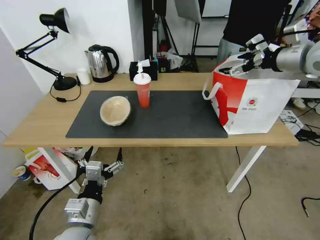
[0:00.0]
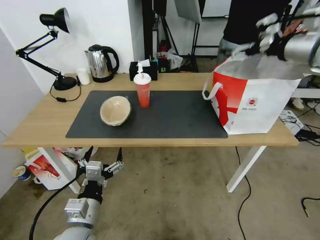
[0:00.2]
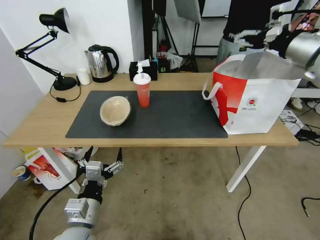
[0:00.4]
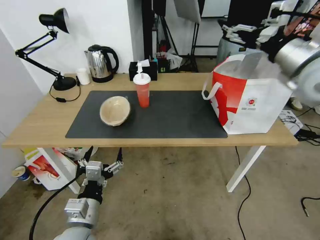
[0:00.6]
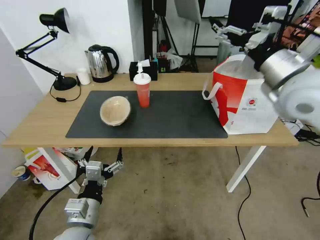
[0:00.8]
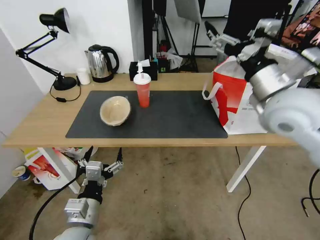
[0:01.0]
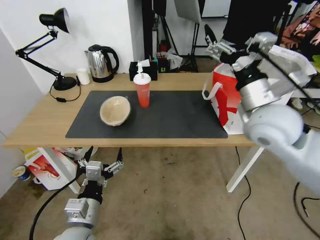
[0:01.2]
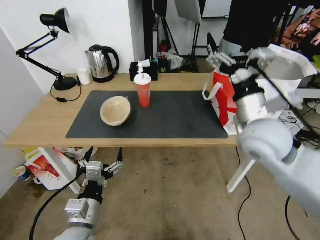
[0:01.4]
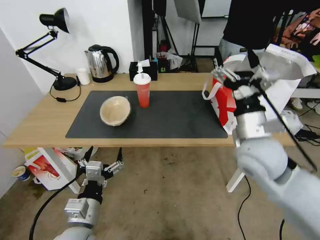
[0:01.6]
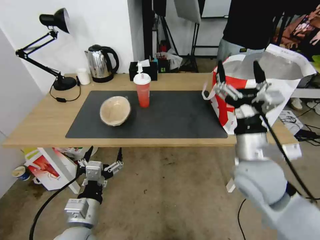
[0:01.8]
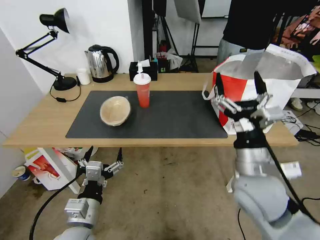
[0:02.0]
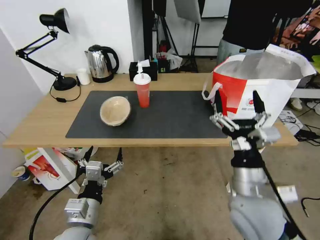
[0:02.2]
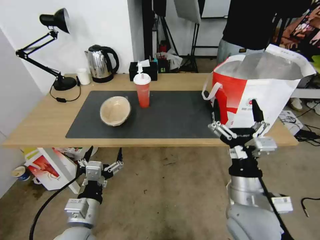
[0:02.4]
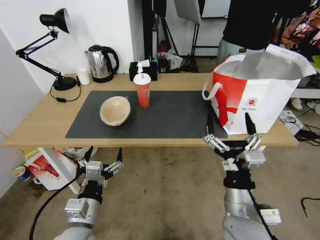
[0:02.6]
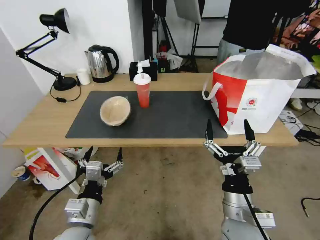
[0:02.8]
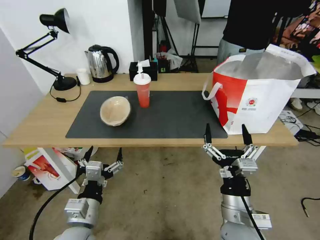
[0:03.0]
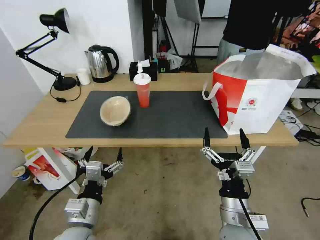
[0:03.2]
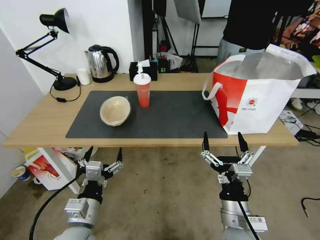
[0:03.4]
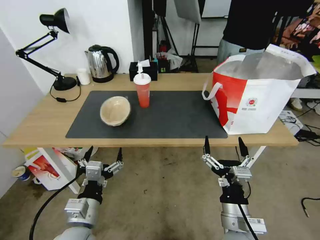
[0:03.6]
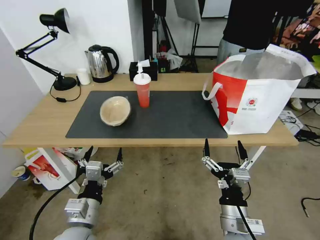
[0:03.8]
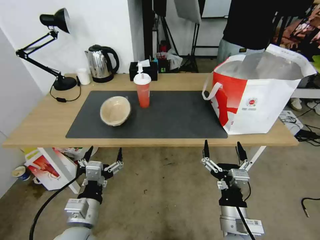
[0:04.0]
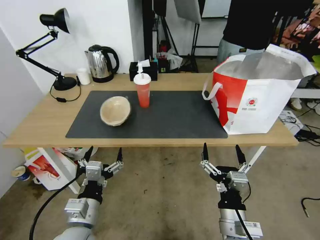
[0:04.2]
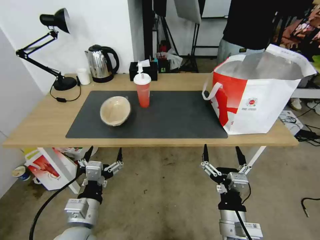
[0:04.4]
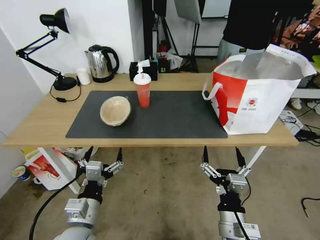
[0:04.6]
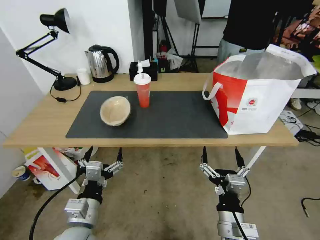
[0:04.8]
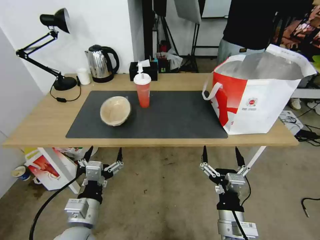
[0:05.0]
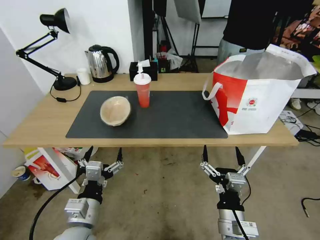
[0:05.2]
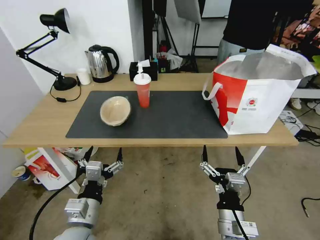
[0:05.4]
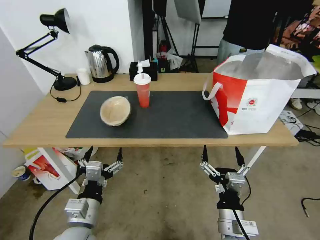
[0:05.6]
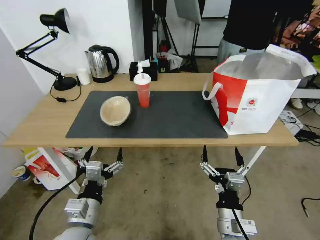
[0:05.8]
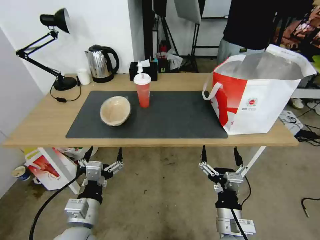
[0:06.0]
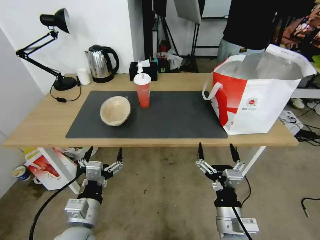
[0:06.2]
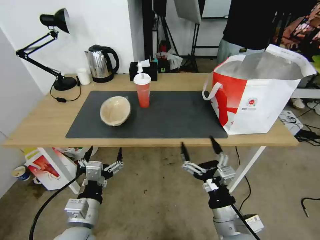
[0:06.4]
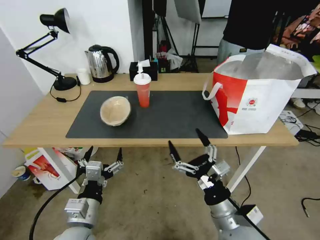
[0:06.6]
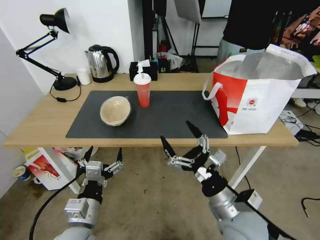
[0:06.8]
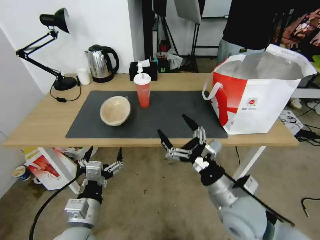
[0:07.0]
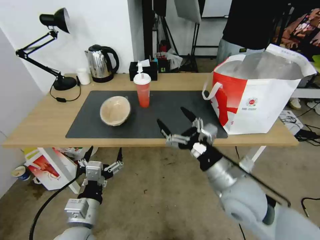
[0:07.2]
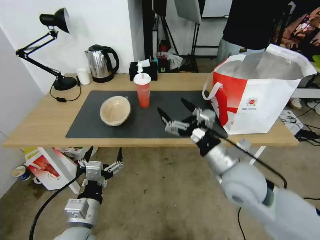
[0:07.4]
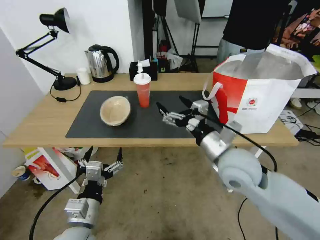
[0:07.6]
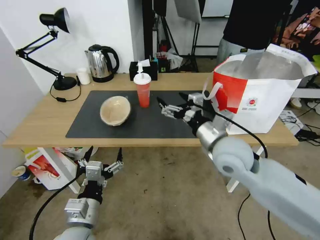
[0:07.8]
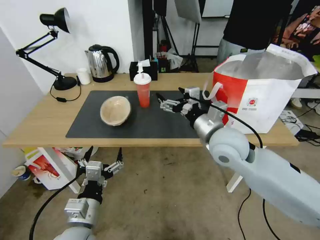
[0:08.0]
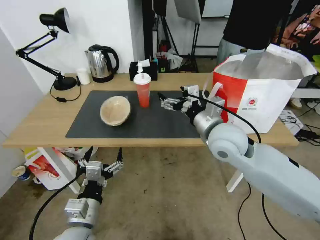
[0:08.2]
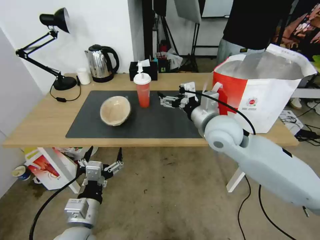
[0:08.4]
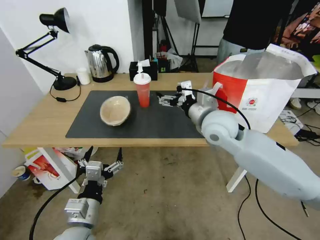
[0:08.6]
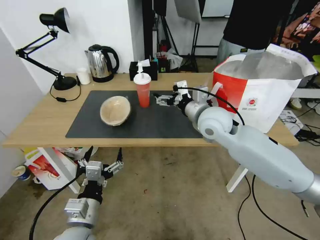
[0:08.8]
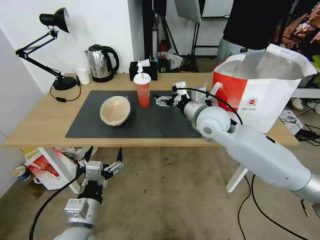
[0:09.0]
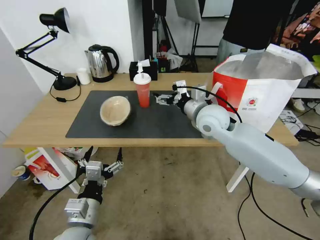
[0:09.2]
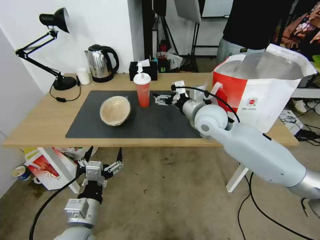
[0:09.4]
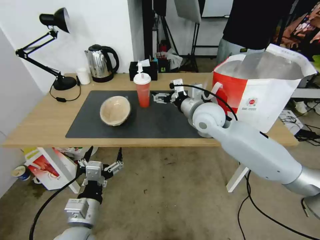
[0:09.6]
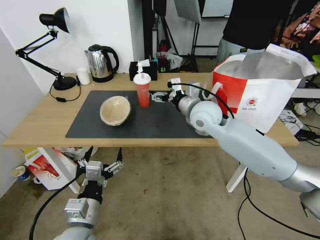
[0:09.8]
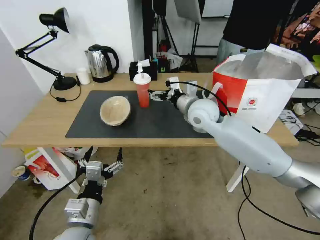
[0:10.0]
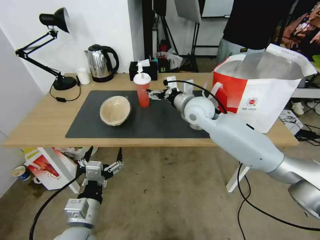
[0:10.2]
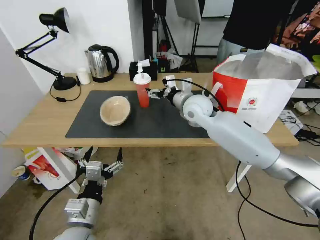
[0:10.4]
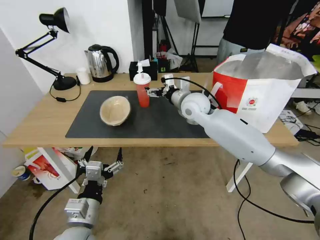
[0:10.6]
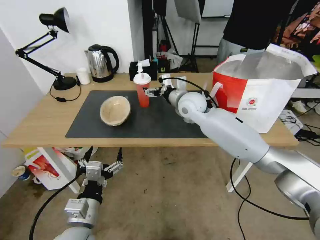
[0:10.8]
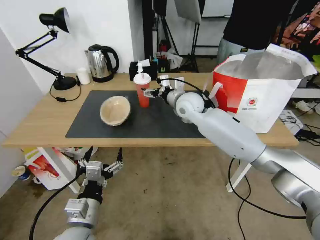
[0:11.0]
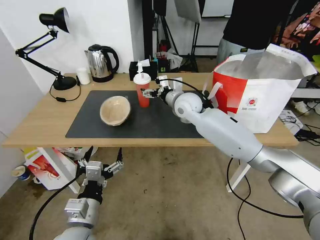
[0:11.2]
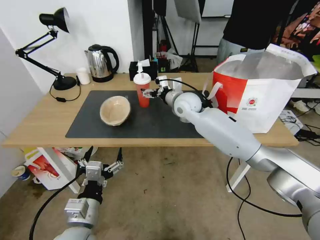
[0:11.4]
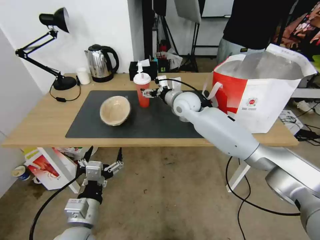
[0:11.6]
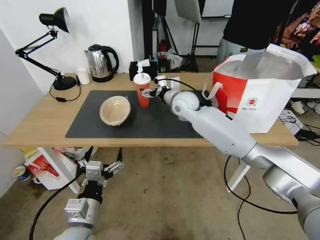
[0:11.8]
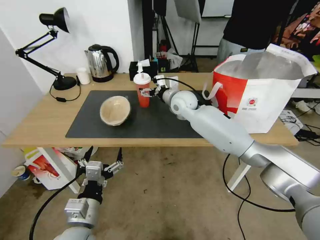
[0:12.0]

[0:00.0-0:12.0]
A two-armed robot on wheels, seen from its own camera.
Task of the whole recording: Pick up the trash from the table and place it into the takeout bag.
0:00.0 to 0:01.6: The right gripper heads downward, to the left and backward, covering about 30 cm.
0:01.6 to 0:03.0: The right gripper travels downward and backward by approximately 20 cm.
0:03.0 to 0:06.0: There are only small adjustments of the grippers.
0:06.0 to 0:07.6: The right gripper moves forward and upward, roughly 20 cm.
0:07.6 to 0:09.0: The right gripper heads forward, covering about 15 cm.
0:09.0 to 0:10.4: The right gripper travels forward by about 5 cm.
0:10.4 to 0:12.0: The right gripper travels forward by roughly 5 cm.

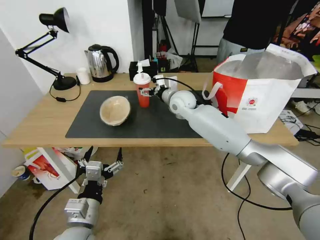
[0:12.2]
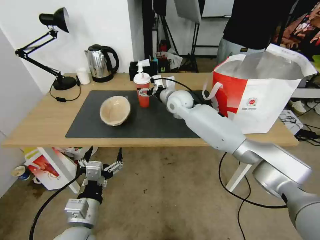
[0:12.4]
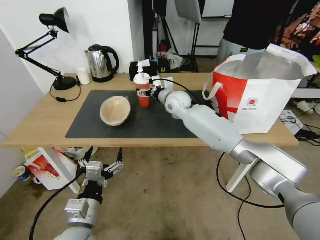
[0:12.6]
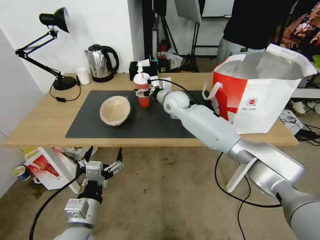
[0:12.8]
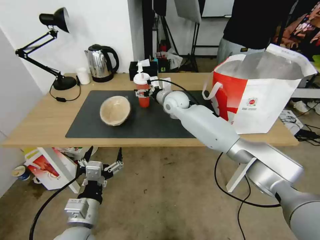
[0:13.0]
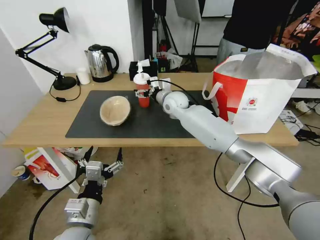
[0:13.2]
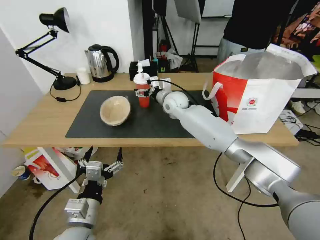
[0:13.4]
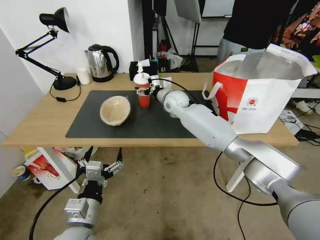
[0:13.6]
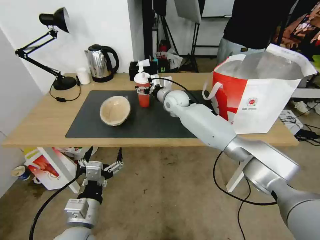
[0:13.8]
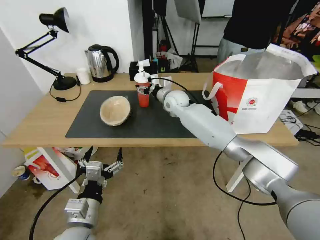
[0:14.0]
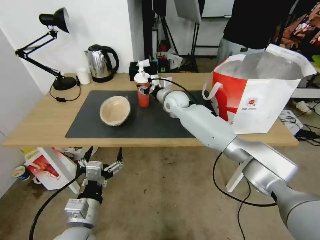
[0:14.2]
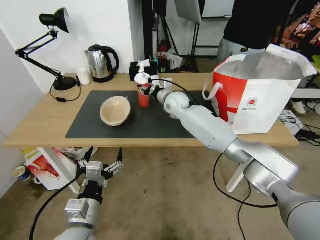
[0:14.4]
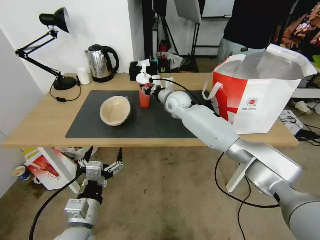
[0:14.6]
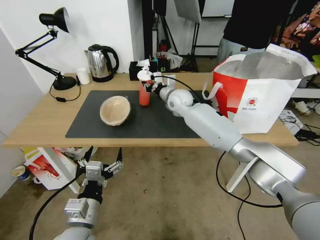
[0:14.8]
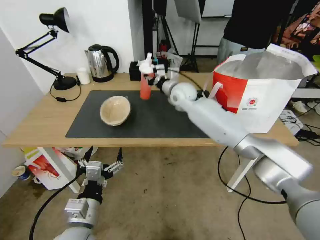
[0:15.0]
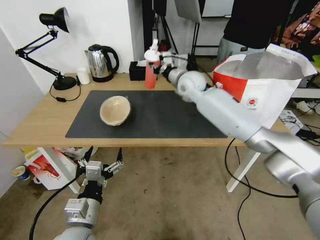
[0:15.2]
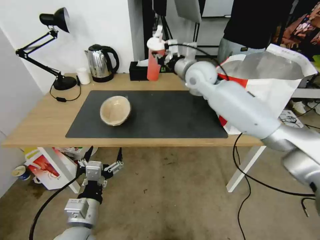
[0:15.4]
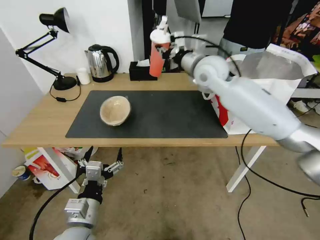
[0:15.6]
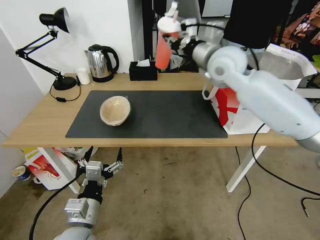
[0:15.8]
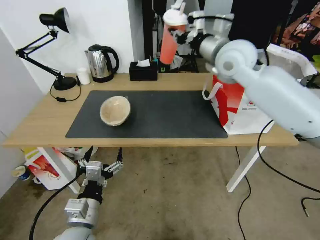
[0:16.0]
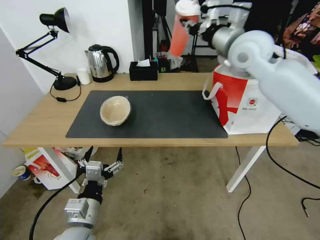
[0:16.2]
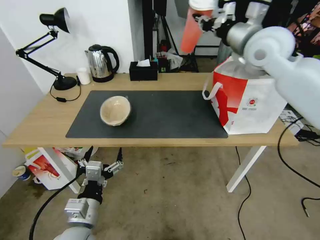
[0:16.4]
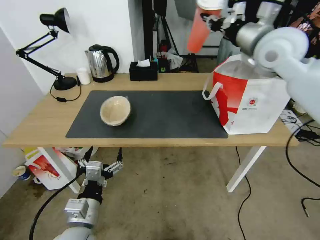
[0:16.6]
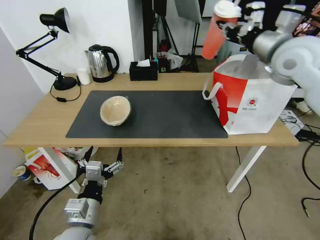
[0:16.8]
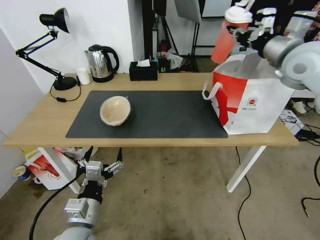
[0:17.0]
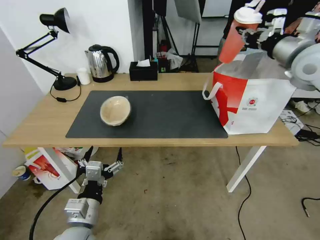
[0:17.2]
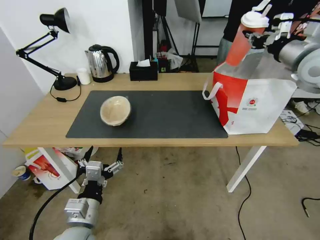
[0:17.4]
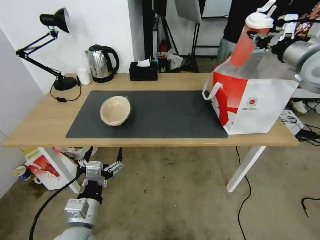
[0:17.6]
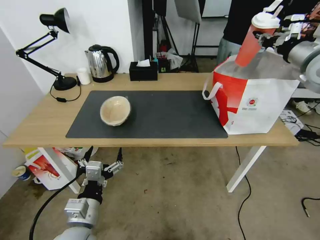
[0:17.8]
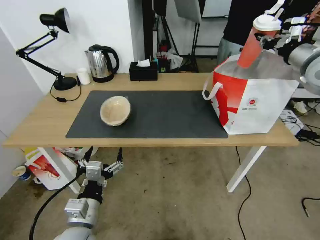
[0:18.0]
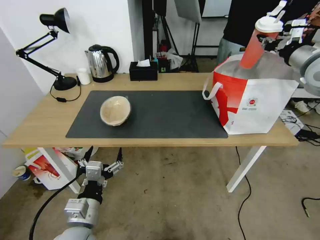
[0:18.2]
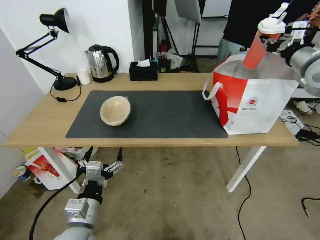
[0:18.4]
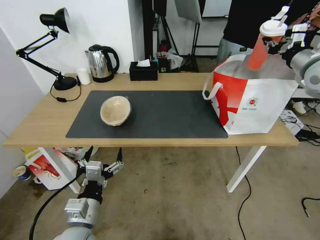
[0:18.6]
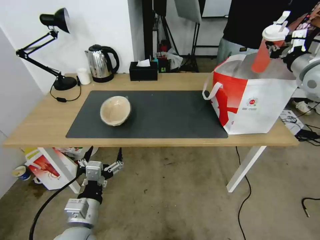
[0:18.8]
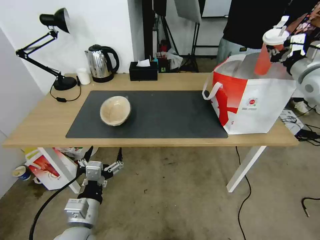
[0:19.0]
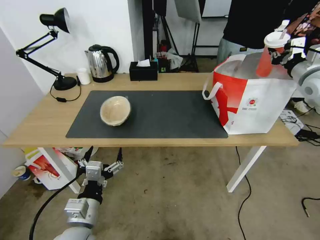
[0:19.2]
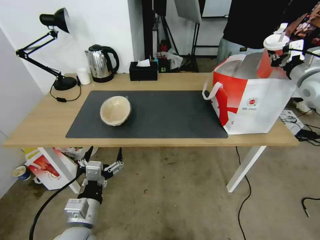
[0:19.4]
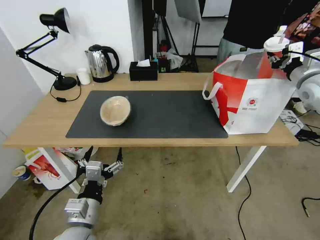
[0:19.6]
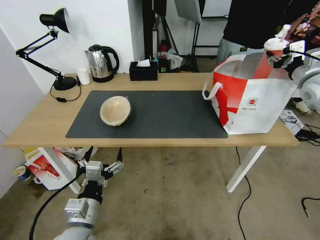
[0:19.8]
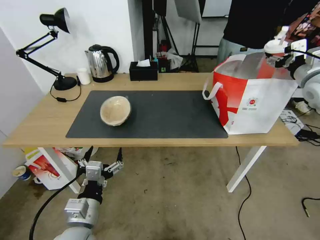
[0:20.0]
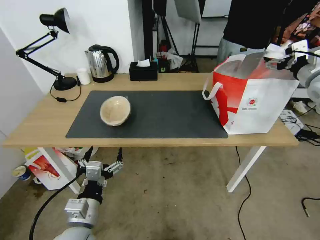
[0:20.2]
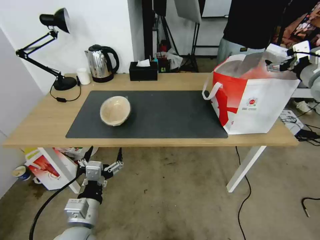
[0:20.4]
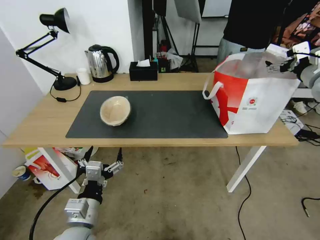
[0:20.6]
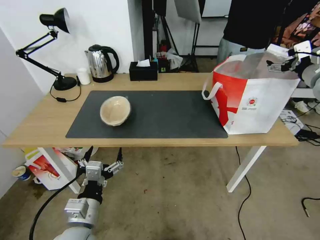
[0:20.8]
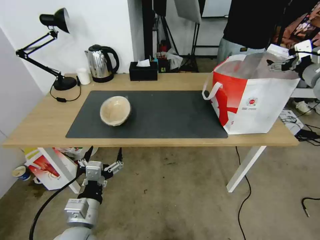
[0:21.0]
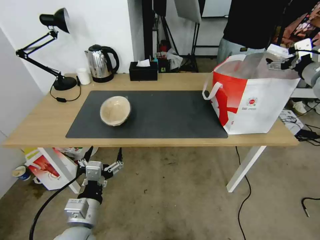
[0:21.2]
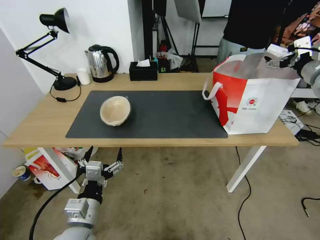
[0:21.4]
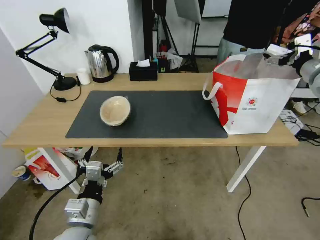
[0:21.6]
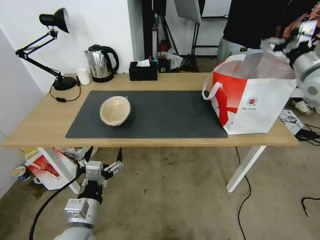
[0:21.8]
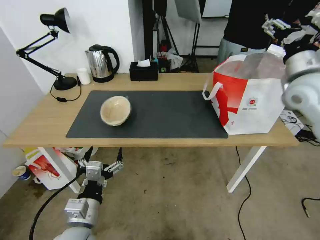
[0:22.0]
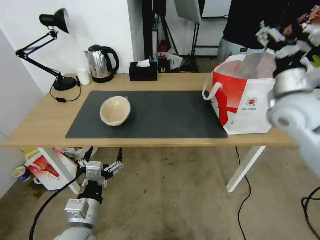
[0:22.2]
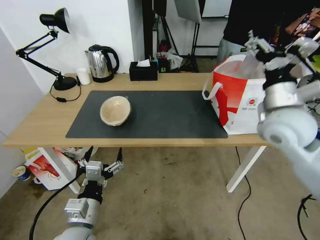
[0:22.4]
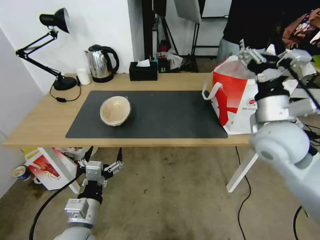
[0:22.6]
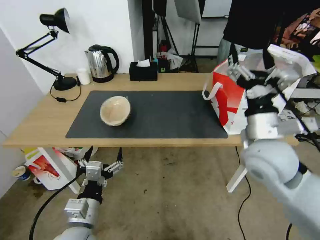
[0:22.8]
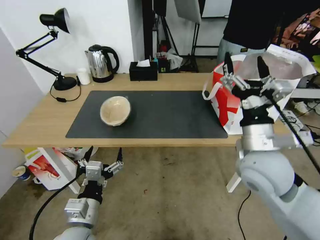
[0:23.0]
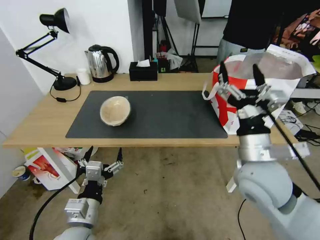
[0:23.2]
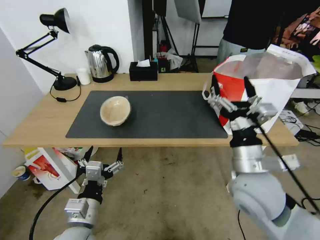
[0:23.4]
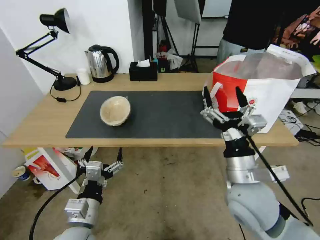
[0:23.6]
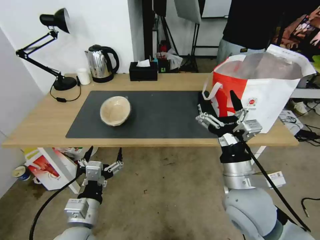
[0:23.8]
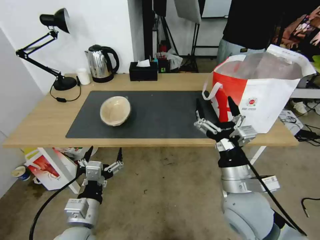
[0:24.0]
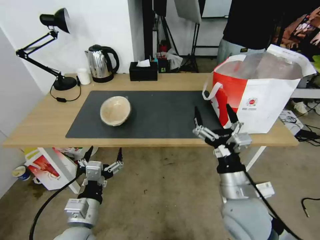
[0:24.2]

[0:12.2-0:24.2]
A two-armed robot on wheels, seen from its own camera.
Task of the whole recording: Pick up the trash from the table and place it into the takeout bag.
0:12.2 to 0:13.8: The grippers move only a little.
0:13.8 to 0:15.2: The right gripper travels upward by roughly 10 cm, and closes its fingers.
0:15.2 to 0:16.6: The right gripper travels to the right, upward and backward by some 25 cm.
0:16.6 to 0:18.2: The right gripper is displaced to the right by approximately 15 cm.
0:18.2 to 0:19.8: The right gripper goes approximately 5 cm downward, and opens its fingers.
0:19.8 to 0:21.2: The right gripper opens up.
0:21.2 to 0:22.6: The right gripper goes about 20 cm to the left and backward.
0:22.6 to 0:24.2: The right gripper moves backward, downward and to the left, approximately 25 cm.
